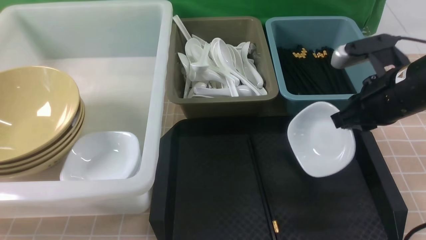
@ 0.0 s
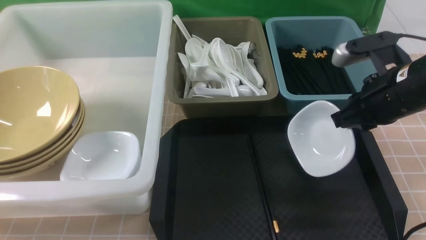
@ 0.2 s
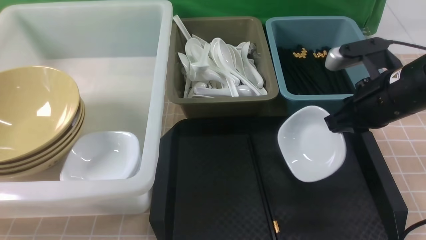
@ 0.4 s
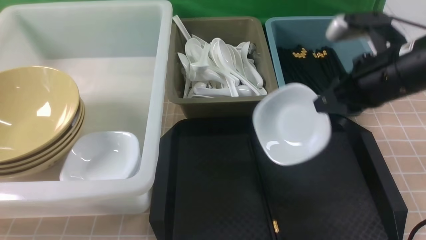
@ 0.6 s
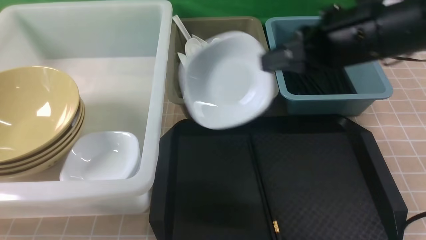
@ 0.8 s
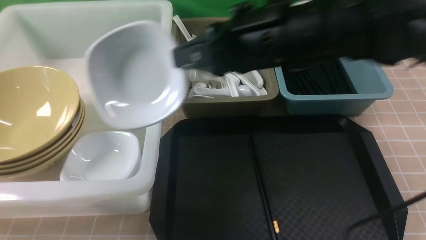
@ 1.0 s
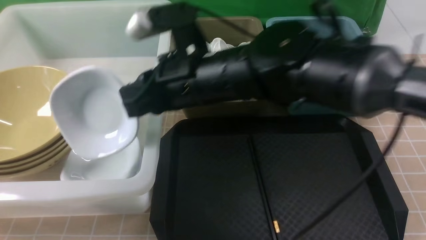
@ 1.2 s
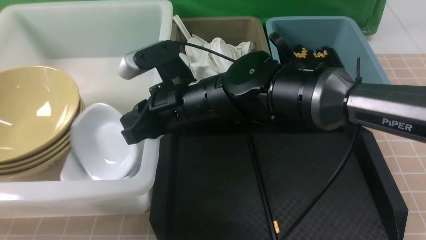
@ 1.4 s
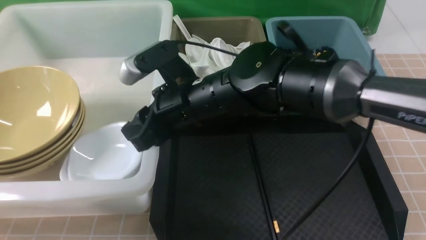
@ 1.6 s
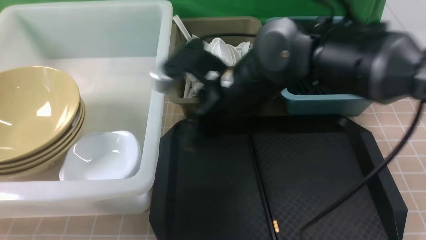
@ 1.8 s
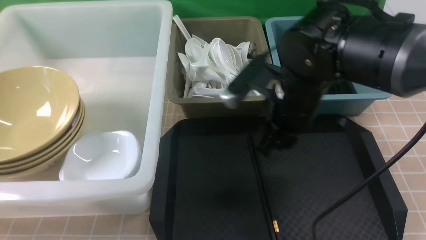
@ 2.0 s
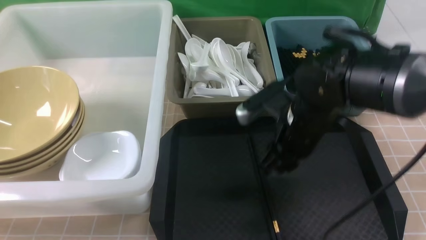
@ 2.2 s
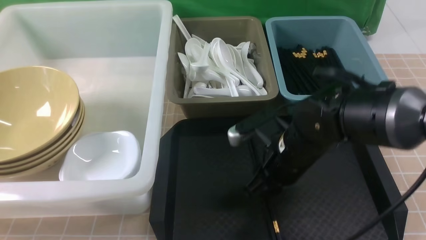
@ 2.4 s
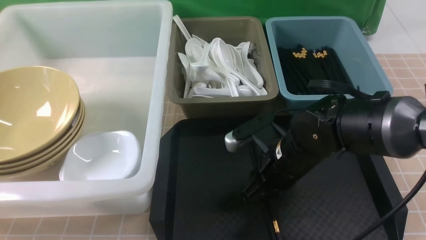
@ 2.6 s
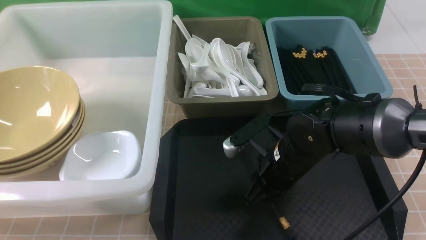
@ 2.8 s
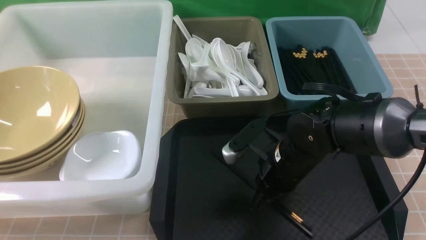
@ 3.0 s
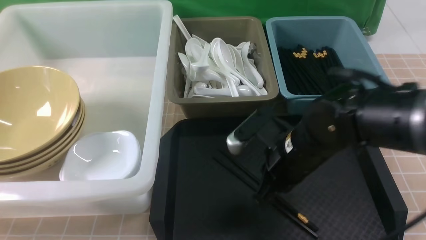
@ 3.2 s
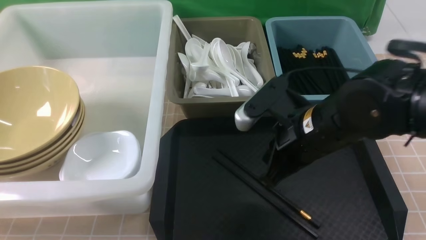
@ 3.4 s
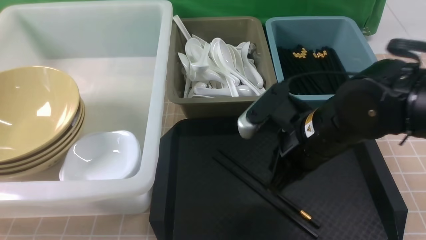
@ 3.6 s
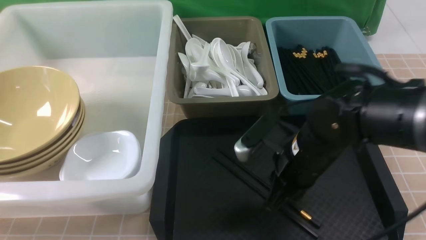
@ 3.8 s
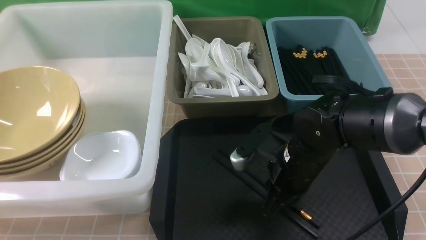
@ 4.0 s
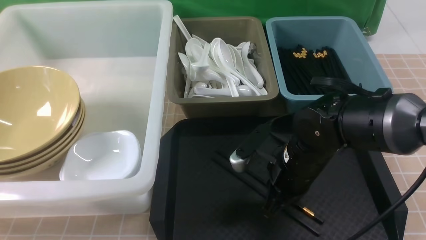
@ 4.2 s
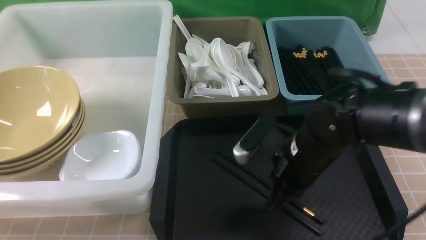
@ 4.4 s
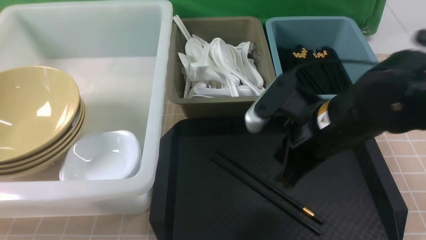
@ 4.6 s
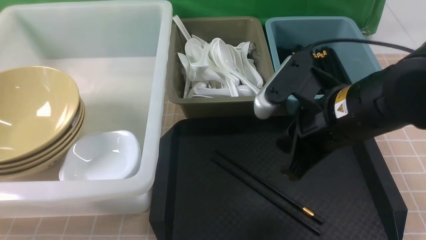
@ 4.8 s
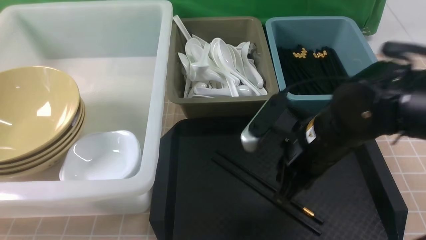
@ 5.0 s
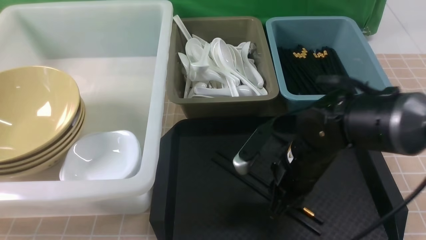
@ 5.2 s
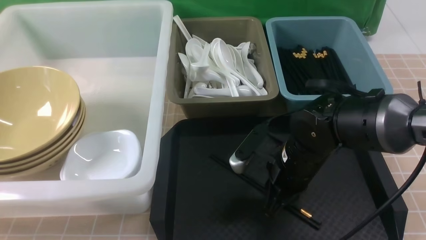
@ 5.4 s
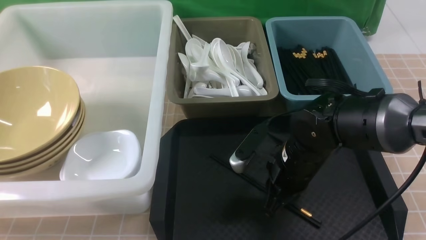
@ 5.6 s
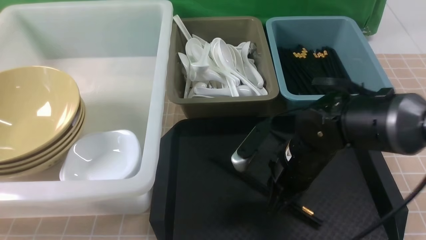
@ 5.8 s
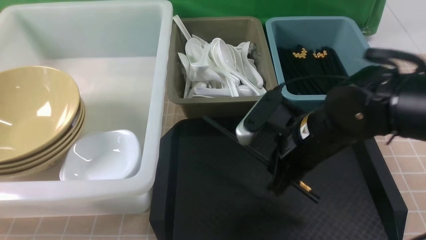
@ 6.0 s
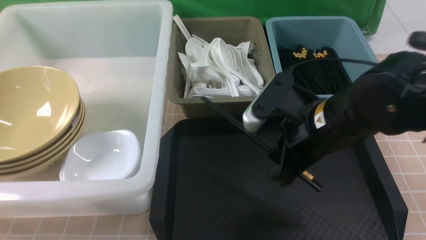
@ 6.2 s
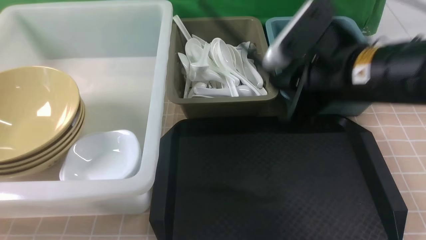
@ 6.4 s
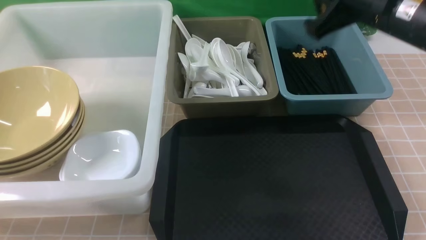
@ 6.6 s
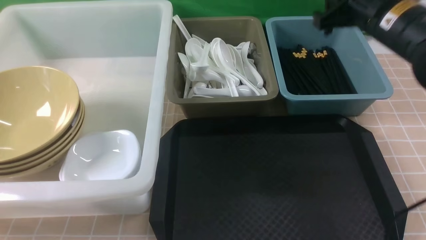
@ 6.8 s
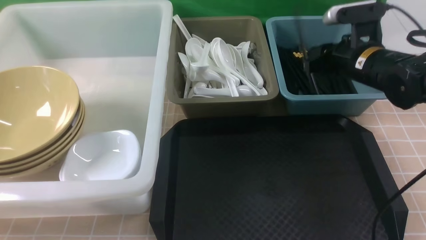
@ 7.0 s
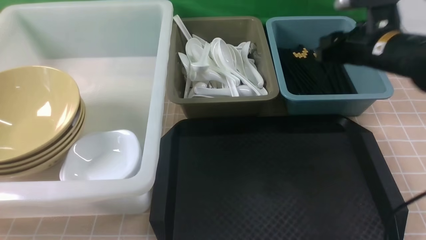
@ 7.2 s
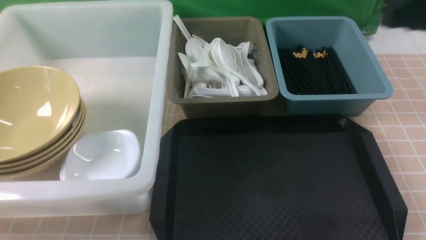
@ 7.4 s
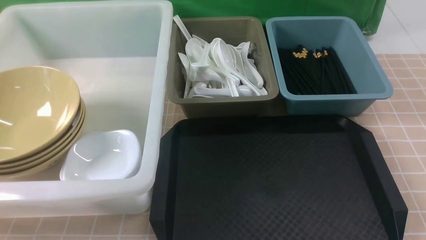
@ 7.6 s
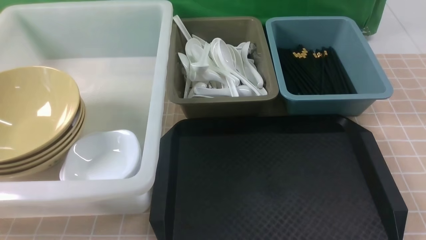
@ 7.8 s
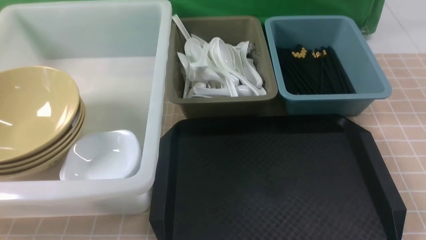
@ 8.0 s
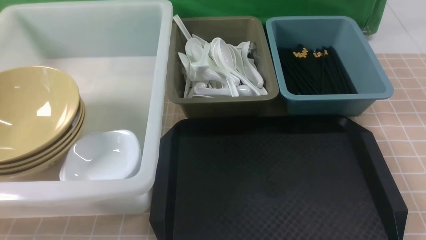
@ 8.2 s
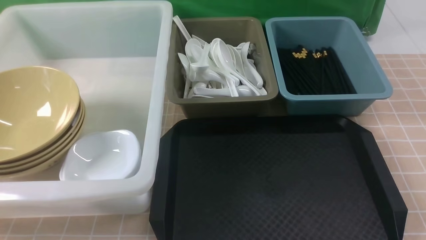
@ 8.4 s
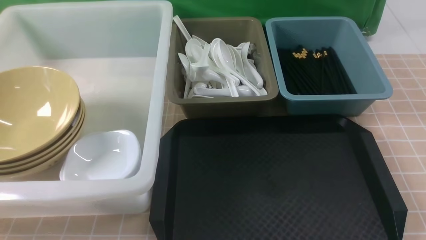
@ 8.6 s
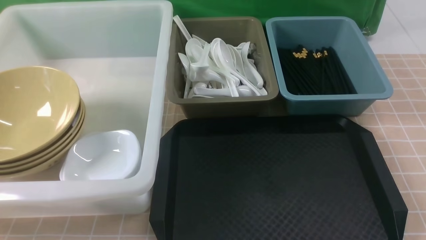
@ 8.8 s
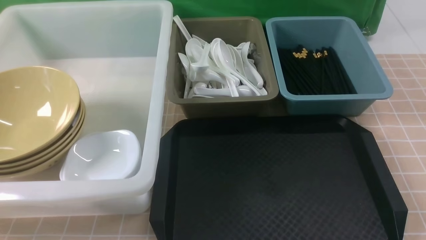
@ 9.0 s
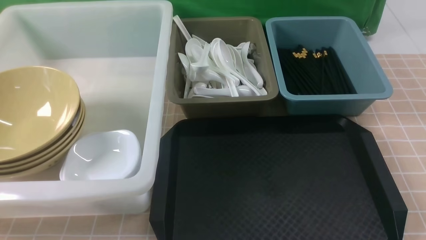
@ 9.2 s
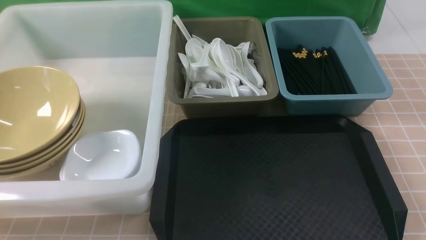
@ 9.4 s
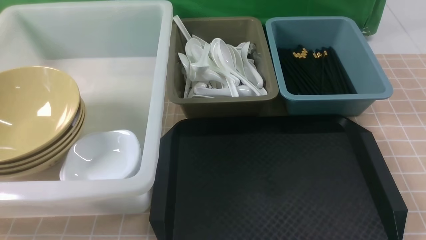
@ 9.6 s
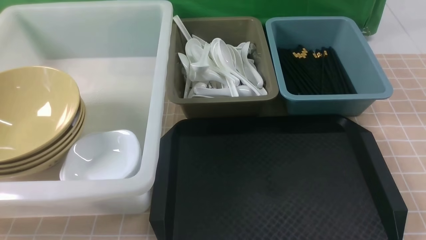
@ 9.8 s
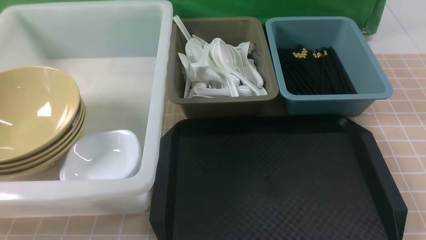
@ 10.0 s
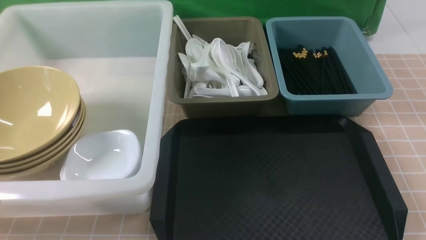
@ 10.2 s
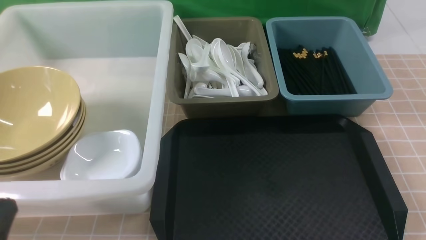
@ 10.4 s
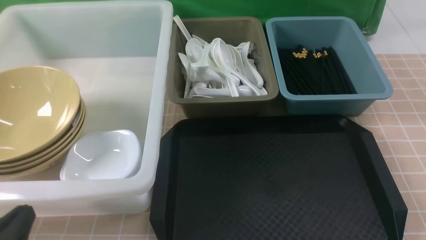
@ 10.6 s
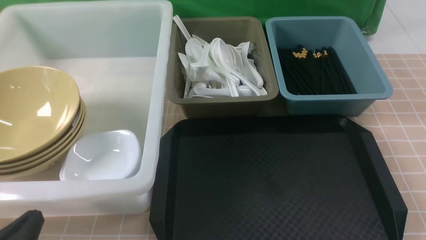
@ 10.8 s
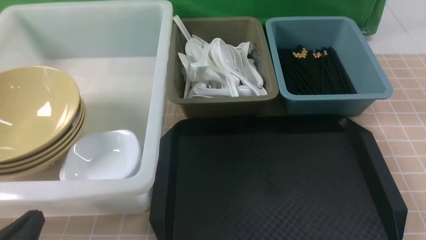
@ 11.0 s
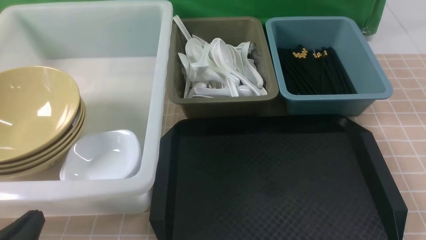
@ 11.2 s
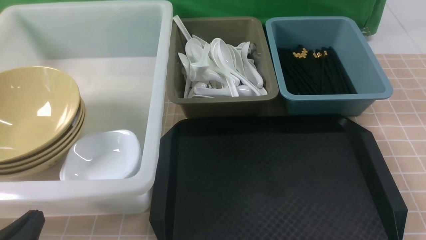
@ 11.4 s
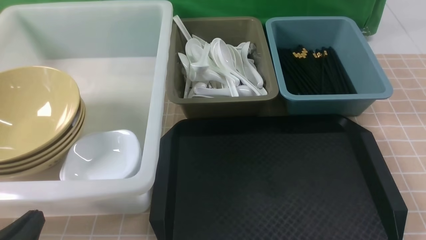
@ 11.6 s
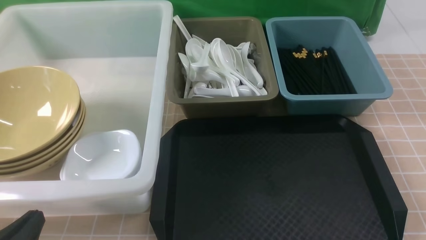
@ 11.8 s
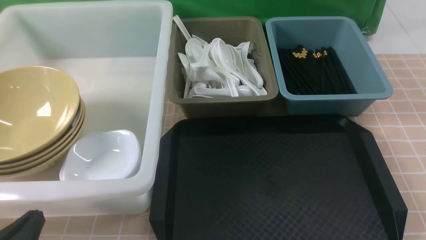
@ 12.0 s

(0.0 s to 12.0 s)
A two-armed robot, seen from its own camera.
Task of the whole recording: on brown table put chopsticks spoon bowls plates into blue grey white boxes.
Step, 0.0 s - 1.6 s: use the right arm to put the plate into the large storage box on the left.
Step, 1.8 s - 6.0 s: use the right arm to grab the chopsticks.
Step, 6.2 s - 7.2 s: use the right arm to put the chopsticks into the small storage box on the right.
0.0 s - 1.6 s: The right gripper heads to the left, covering some 25 cm, and opens.
1.6 s - 3.0 s: The right gripper goes approximately 15 cm to the right and downward.
3.0 s - 4.4 s: The right gripper goes up and down, some 5 cm each way, reversing 2 times.
4.4 s - 6.0 s: The right gripper swings up and down, approximately 10 cm each way, with 2 reversals.
6.0 s - 7.6 s: The right gripper shifts roughly 25 cm to the right, upward and backward, and opens and closes again.
10.4 s - 12.0 s: The grippers make only small movements.

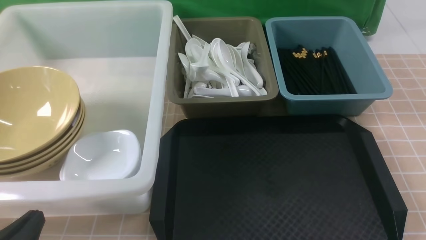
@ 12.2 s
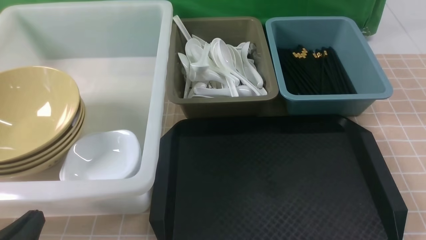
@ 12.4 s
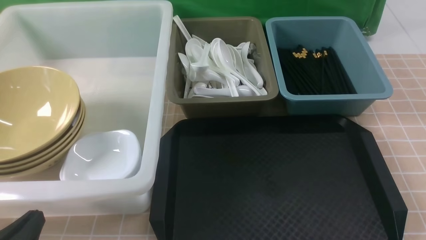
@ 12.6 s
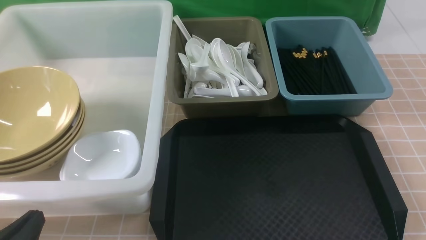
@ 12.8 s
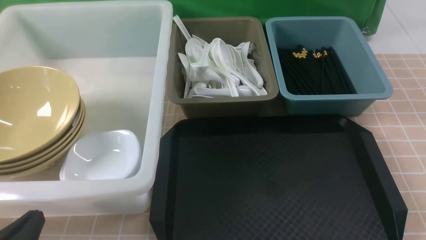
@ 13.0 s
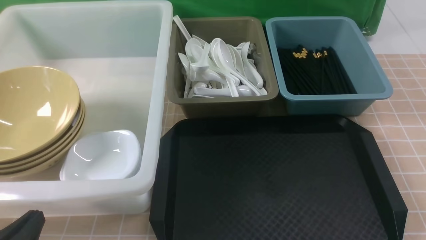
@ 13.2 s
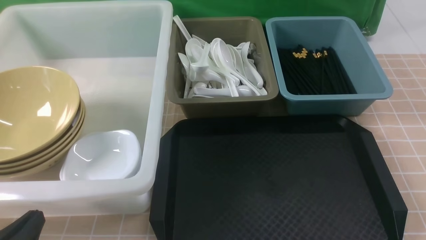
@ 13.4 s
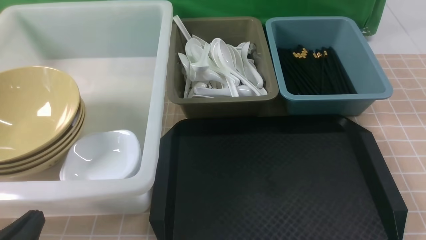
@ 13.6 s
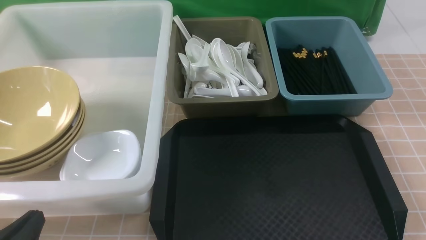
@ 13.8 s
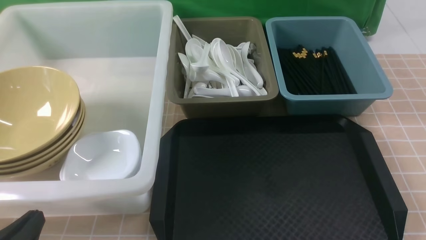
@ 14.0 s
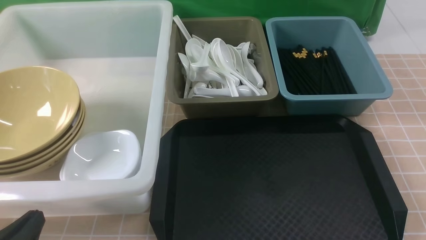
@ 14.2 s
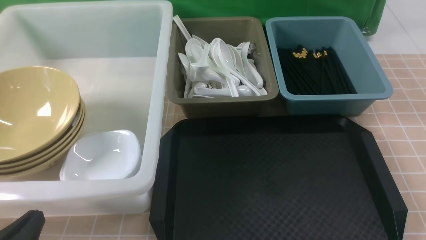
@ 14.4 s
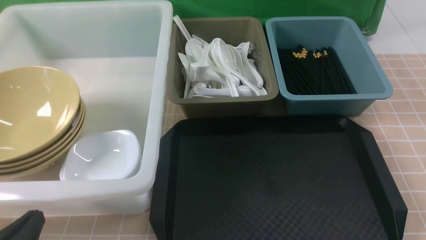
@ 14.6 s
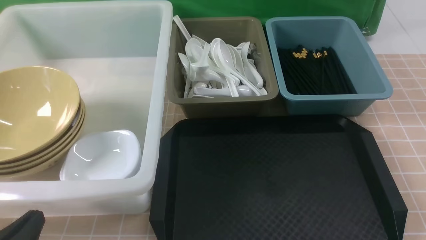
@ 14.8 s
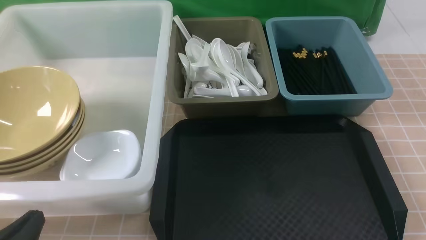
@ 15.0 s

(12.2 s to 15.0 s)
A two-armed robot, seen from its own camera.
Task of the whole recording: on brown table put chopsticks spoon bowls plates into blue grey white boxes.
12.2 s - 15.0 s: The two grippers keep their place.

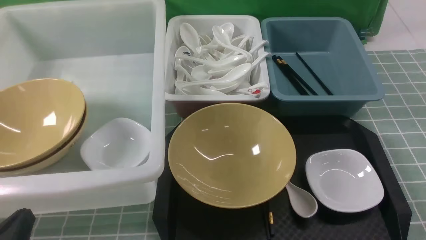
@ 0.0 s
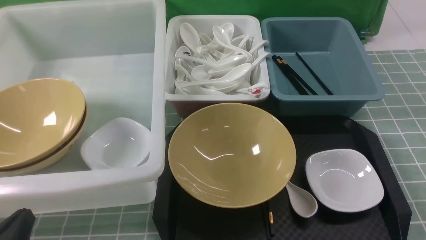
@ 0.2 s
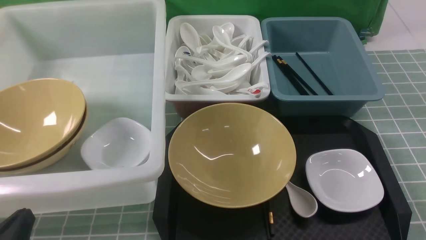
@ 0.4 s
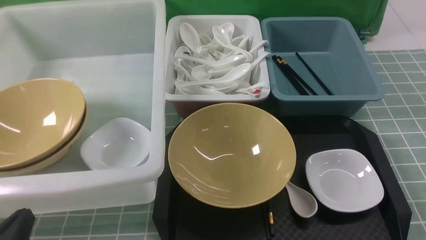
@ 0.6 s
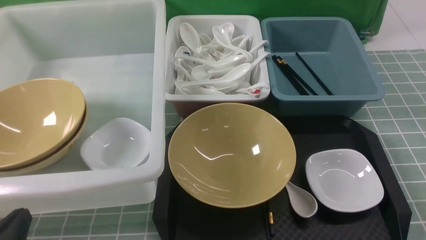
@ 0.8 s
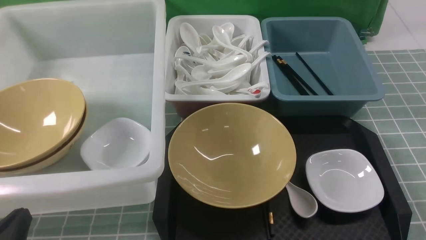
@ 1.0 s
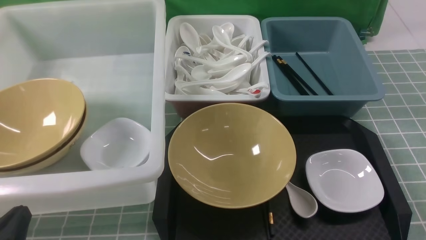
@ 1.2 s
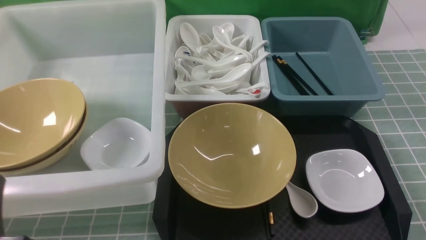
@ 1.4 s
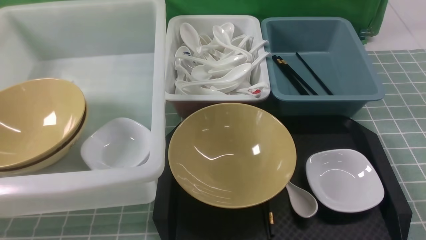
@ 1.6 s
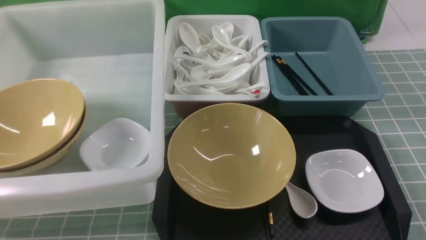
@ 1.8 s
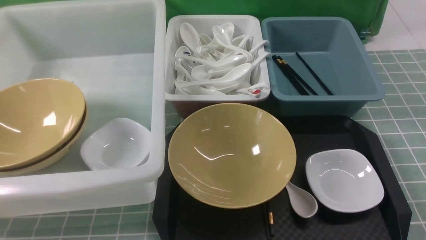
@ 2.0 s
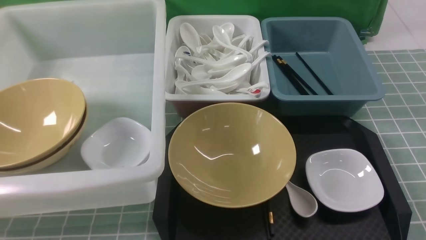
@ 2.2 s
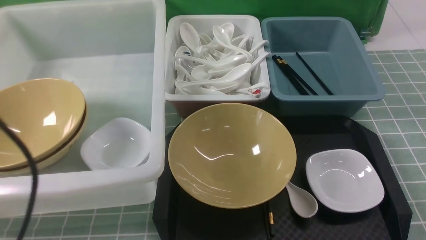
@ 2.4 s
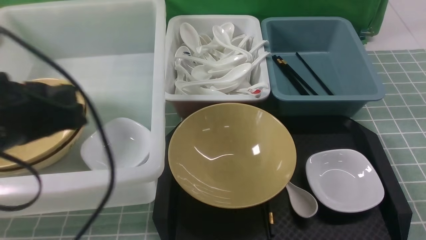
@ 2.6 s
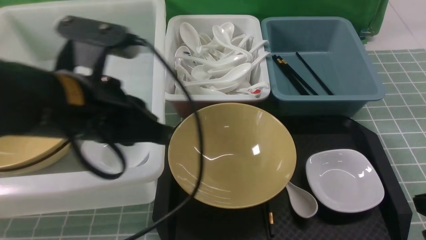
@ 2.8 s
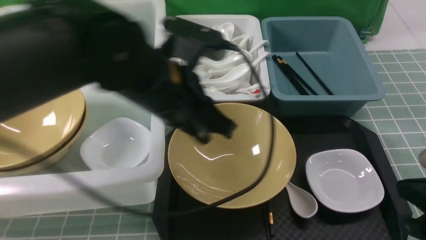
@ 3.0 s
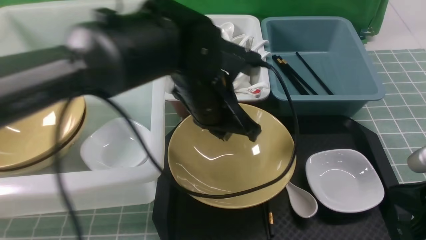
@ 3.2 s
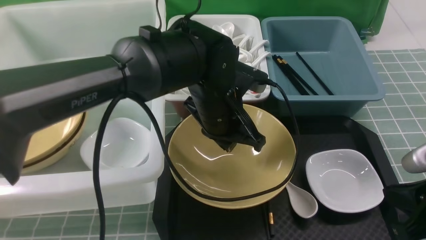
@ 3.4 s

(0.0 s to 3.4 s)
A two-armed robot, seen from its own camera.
Task of the whole recording: on blue table put chopsticks spoon bowls plates into blue grey white boxes.
0.0 s - 1.6 s: The left gripper goes some 5 cm upward.
1.6 s - 3.4 s: The left gripper moves forward and to the right, roughly 35 cm. The right gripper heads forward and to the left, covering some 10 cm, and closes.
